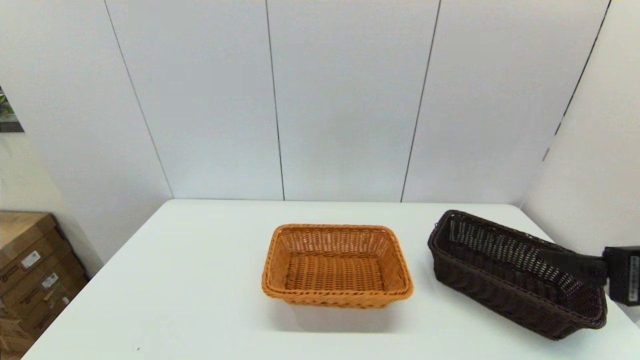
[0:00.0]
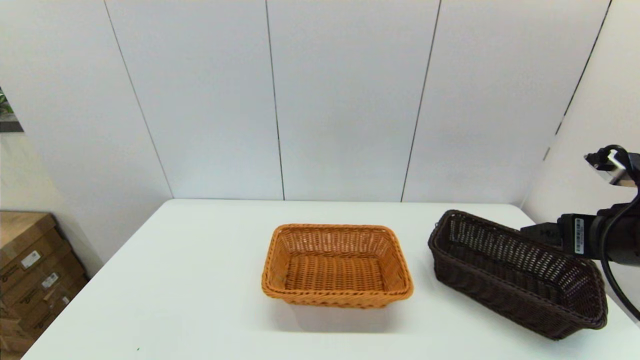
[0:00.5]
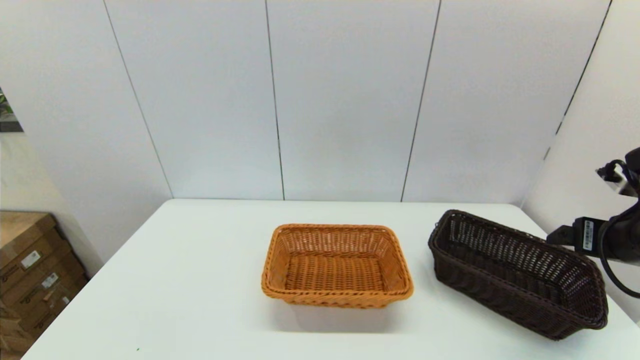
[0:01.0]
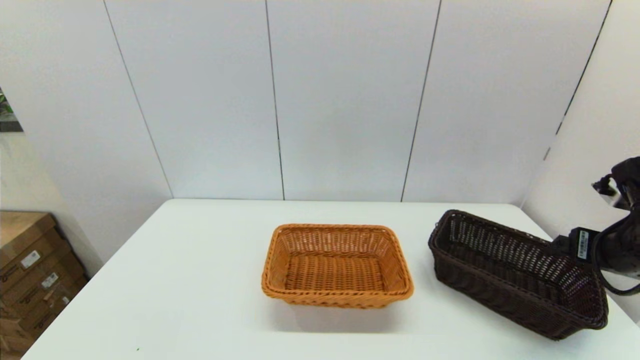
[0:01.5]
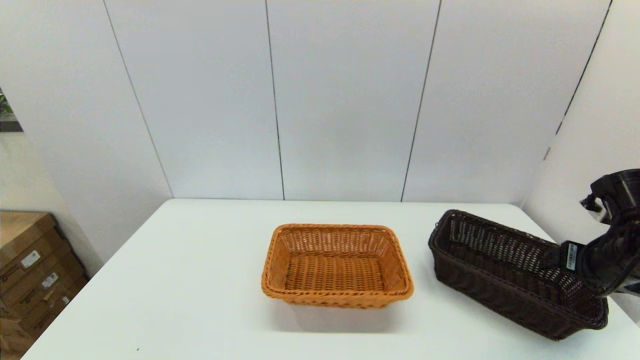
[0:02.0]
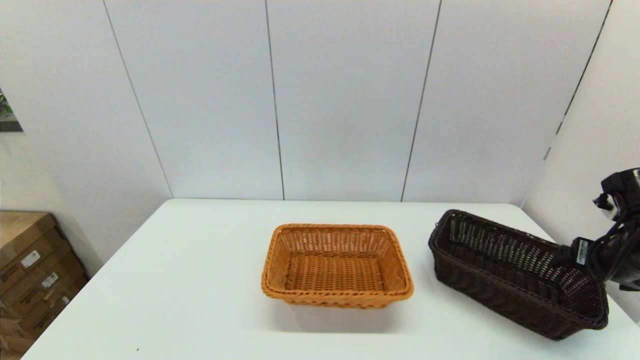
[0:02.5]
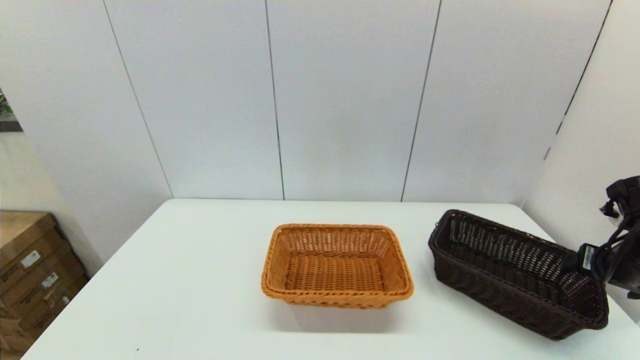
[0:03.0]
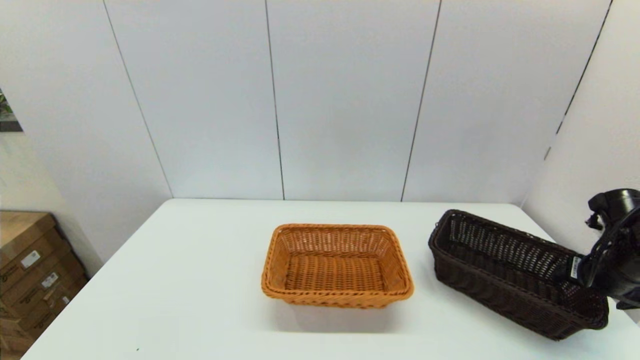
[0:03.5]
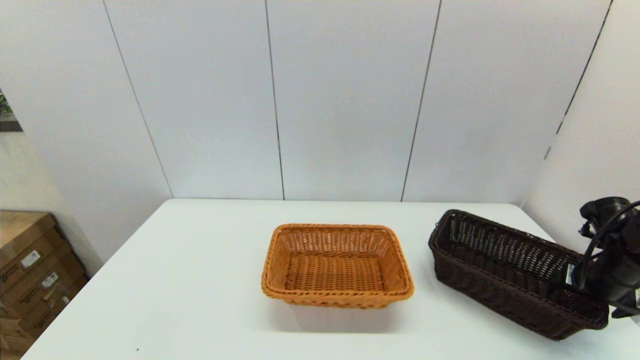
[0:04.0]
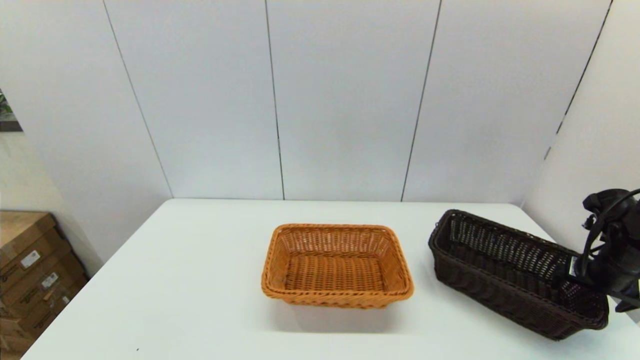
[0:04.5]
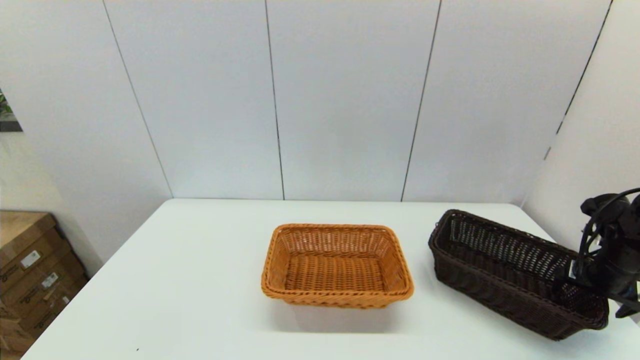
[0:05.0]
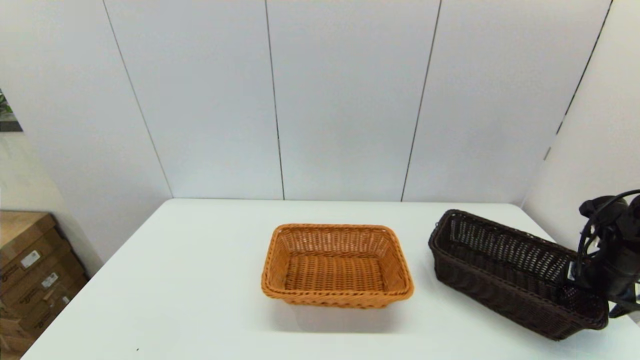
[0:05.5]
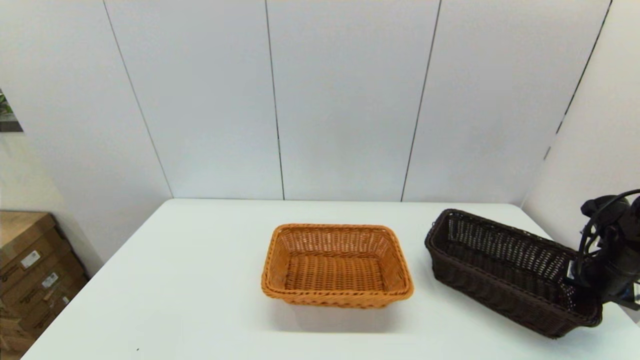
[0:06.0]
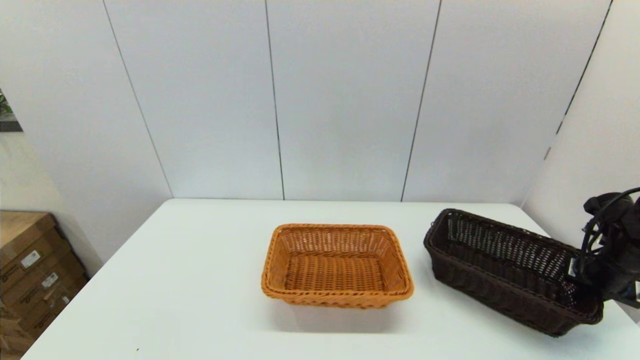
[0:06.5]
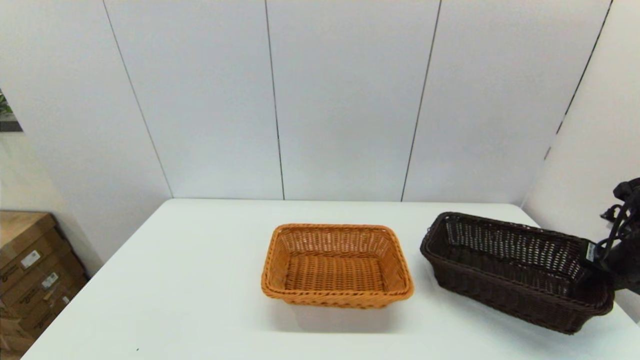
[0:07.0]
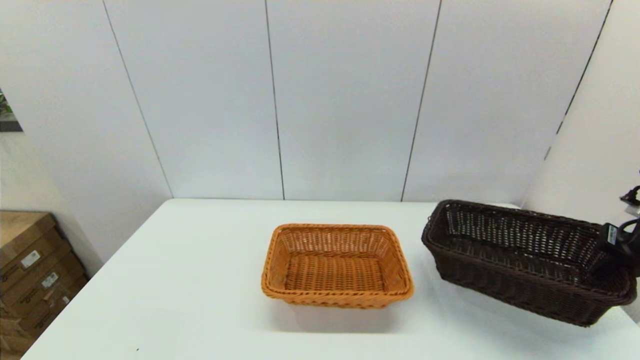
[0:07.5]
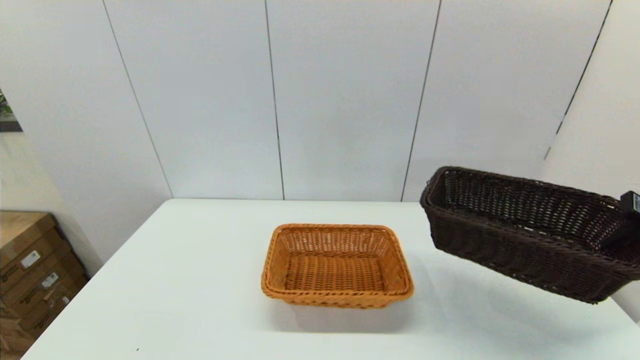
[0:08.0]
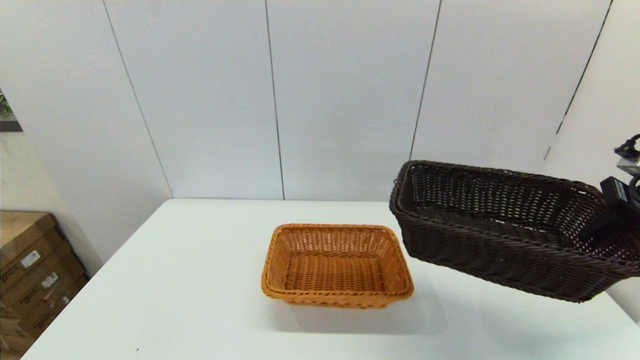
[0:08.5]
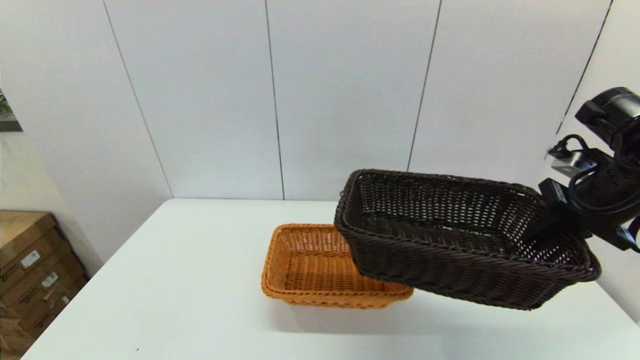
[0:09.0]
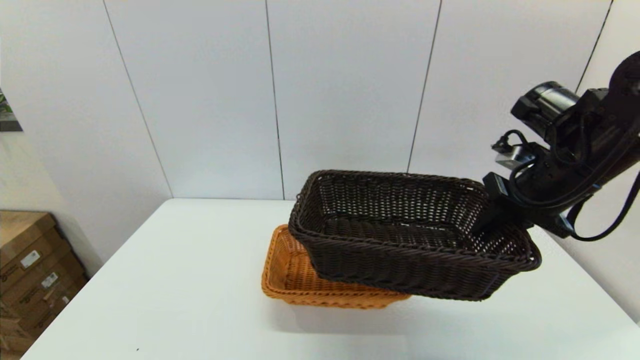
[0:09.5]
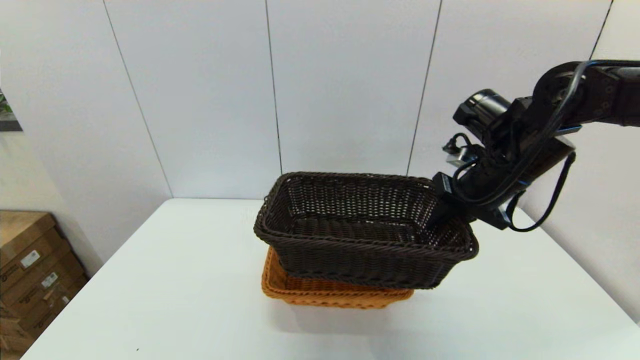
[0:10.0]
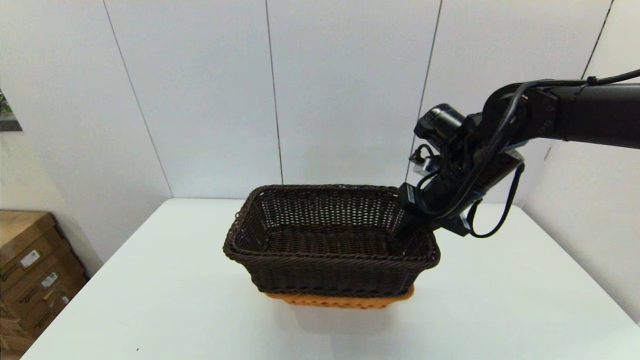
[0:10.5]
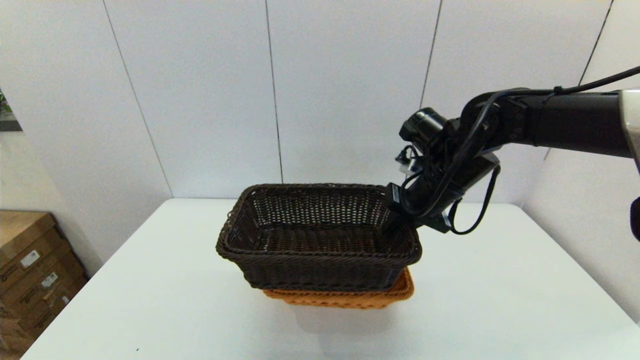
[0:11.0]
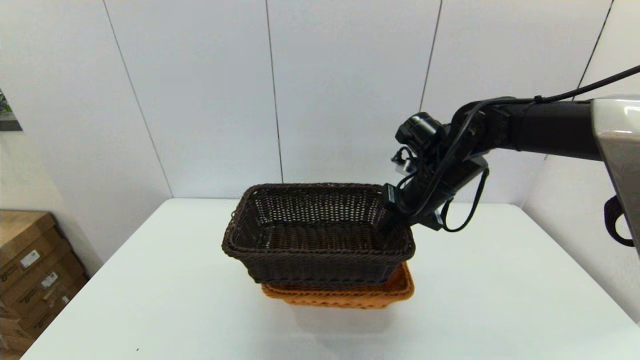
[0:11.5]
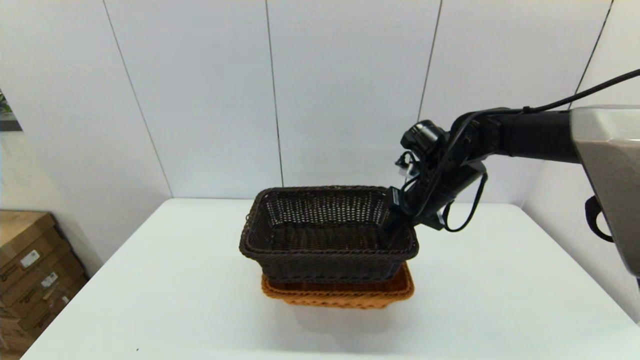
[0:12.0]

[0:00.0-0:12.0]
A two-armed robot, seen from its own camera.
Task of the whole recording: stack a basket on top of another basket.
Step, 0:00.0 to 0:06.0: Grasp the dark basket with the right gripper.
0:00.0 to 0:02.0: The right gripper is displaced forward, downward and to the right by approximately 15 cm.
0:02.0 to 0:04.0: The right gripper shifts some 10 cm downward and to the right.
0:04.0 to 0:06.0: The right gripper closes up.
0:06.0 to 0:08.0: The right gripper heads upward, covering some 15 cm.
0:08.0 to 0:10.0: The right gripper heads to the left, covering approximately 20 cm.
0:10.0 to 0:12.0: The right gripper shifts about 10 cm forward and downward.

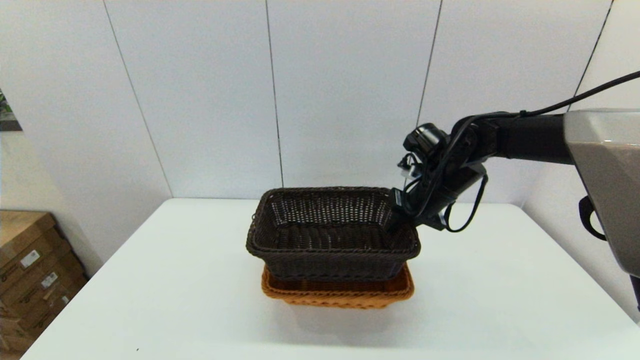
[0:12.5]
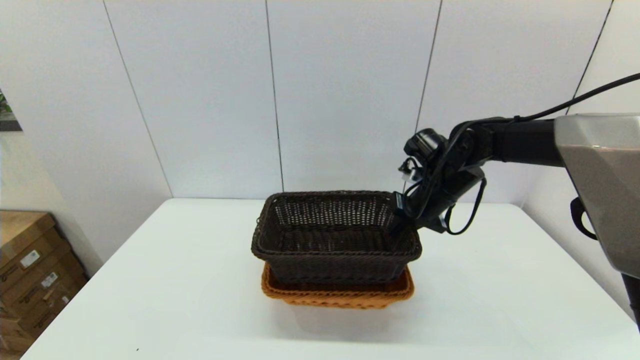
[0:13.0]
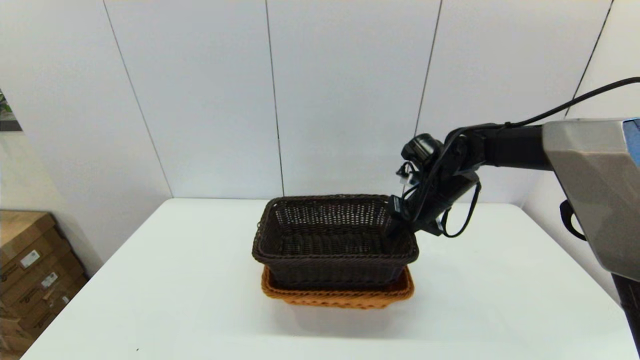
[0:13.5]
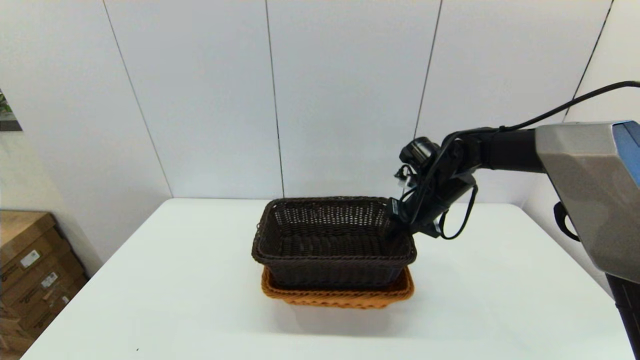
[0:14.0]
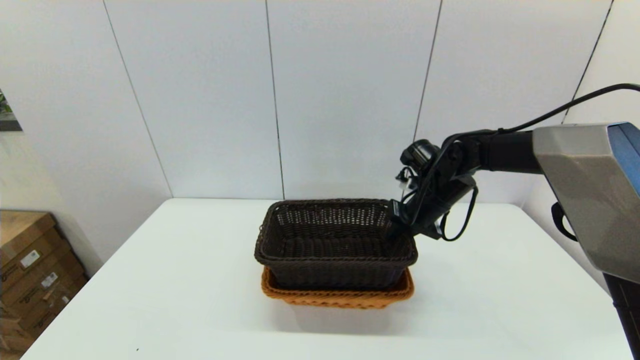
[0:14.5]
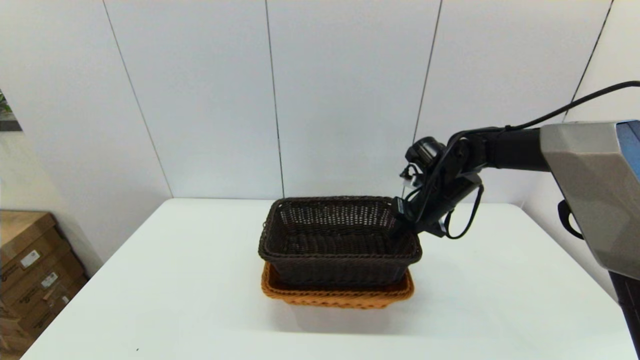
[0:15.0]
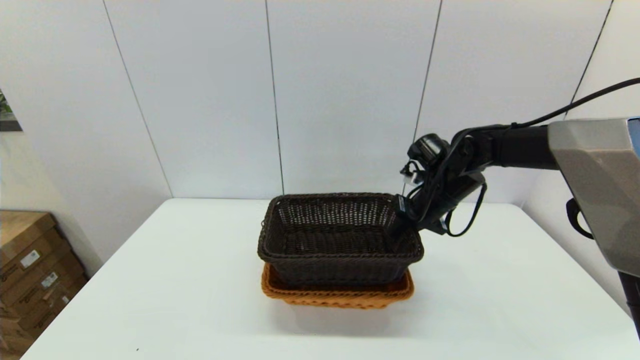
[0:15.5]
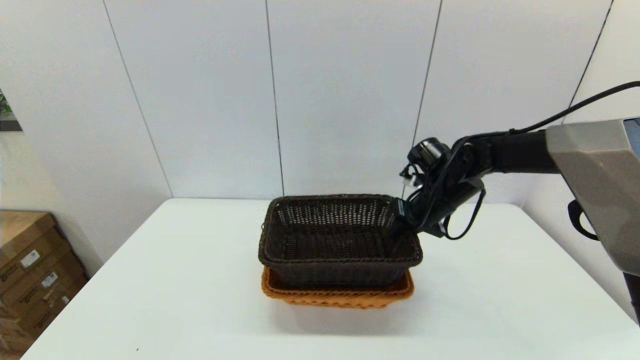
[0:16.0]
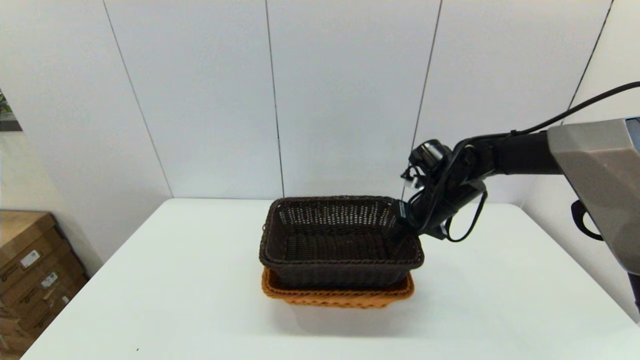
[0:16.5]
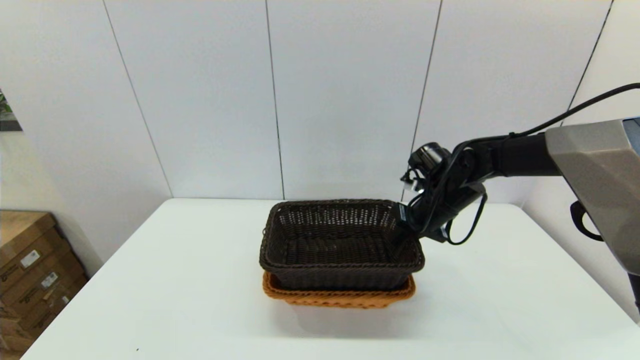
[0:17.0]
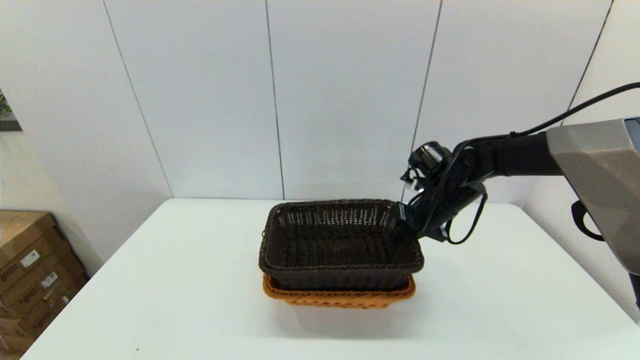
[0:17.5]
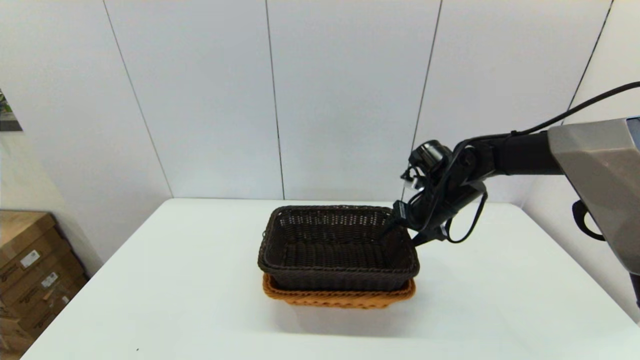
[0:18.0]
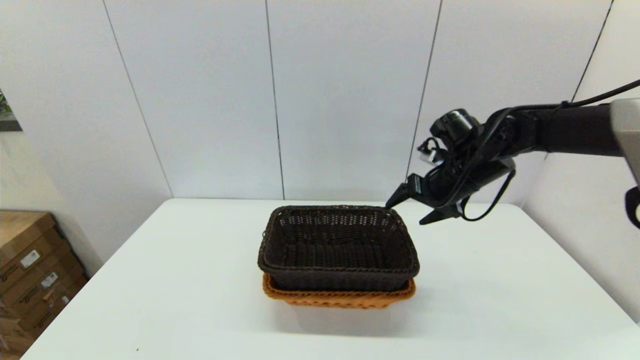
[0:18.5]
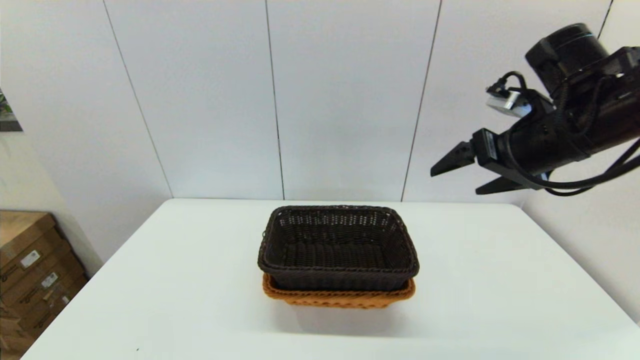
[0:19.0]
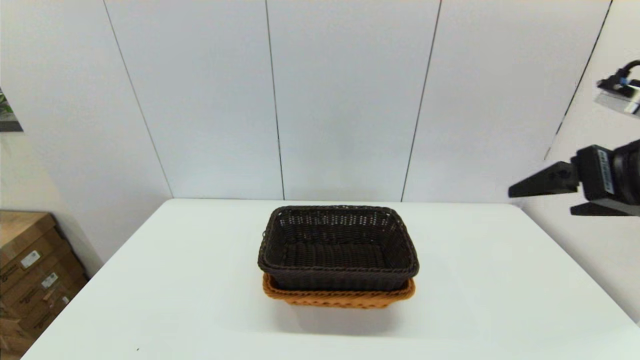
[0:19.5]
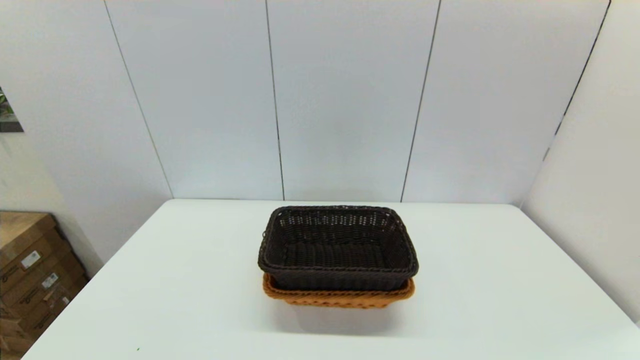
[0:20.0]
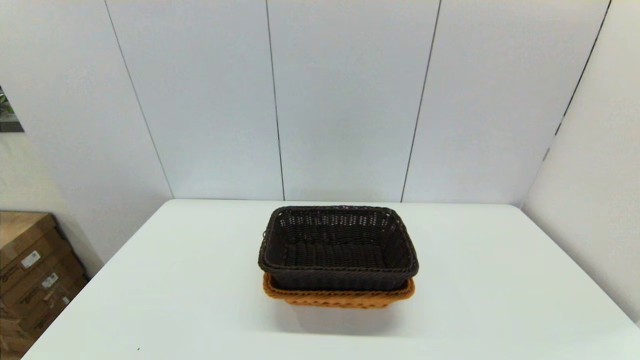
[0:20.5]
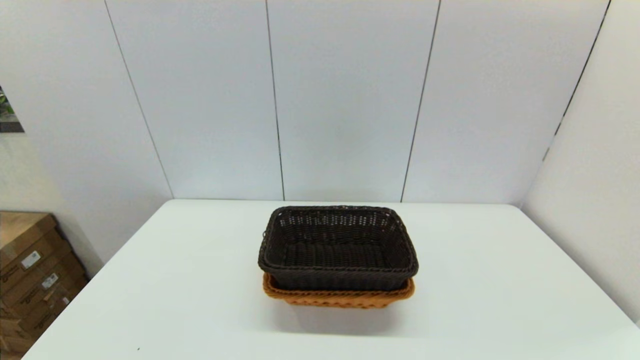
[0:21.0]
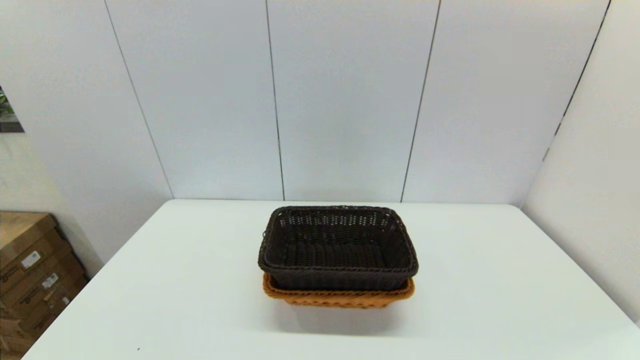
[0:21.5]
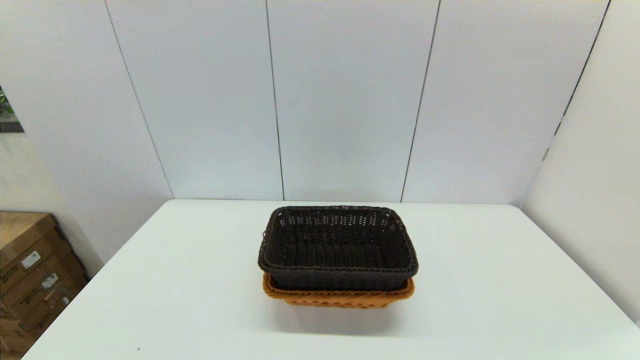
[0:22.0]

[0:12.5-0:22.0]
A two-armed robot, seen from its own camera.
Task of the whole recording: stack a basket on top of another basket.
Step, 0:12.5 to 0:18.5: Place the dark basket into the light color basket with the right gripper.
0:12.5 to 0:16.5: The grippers make only small movements.
0:16.5 to 0:18.0: The right gripper opens its fingers.
0:18.0 to 0:20.0: The right gripper goes approximately 40 cm backward and upward.
